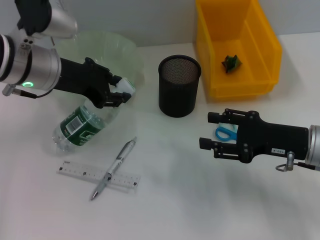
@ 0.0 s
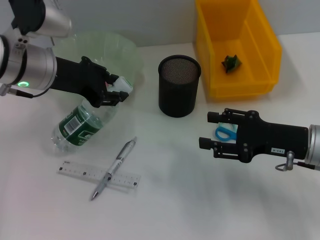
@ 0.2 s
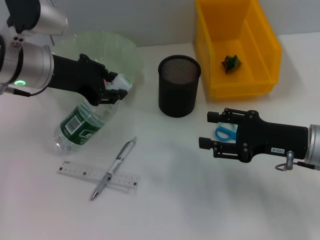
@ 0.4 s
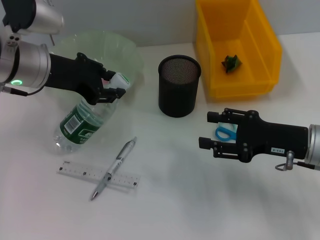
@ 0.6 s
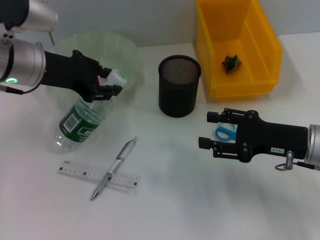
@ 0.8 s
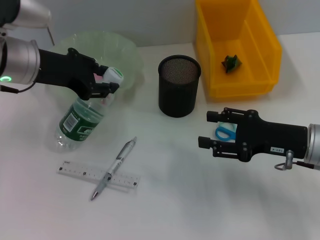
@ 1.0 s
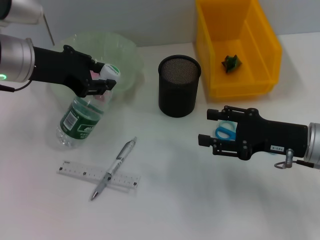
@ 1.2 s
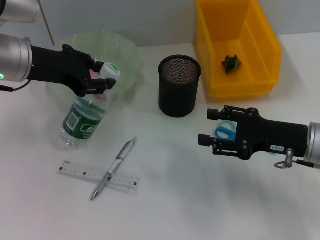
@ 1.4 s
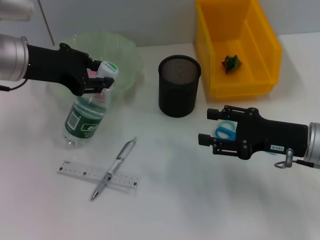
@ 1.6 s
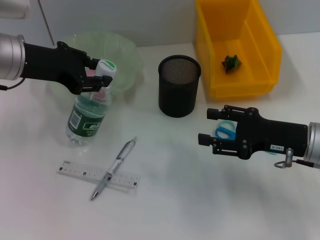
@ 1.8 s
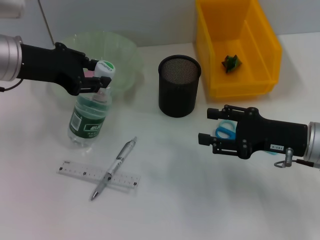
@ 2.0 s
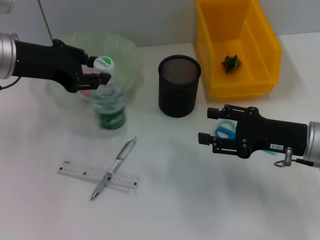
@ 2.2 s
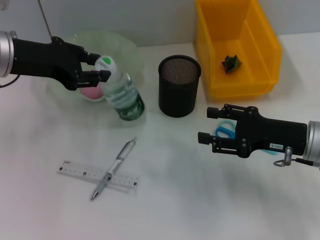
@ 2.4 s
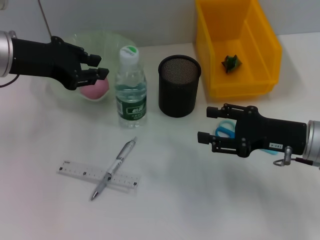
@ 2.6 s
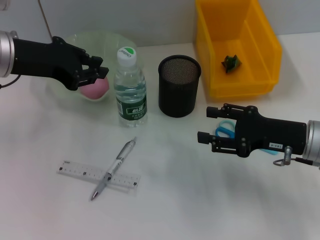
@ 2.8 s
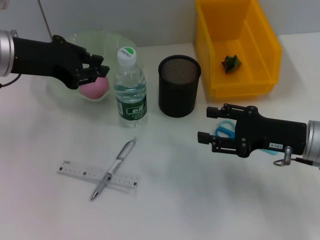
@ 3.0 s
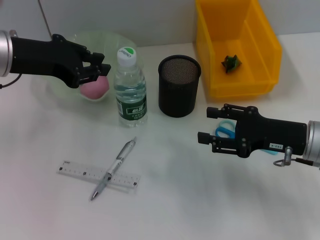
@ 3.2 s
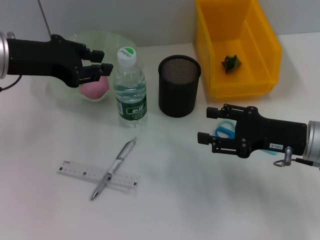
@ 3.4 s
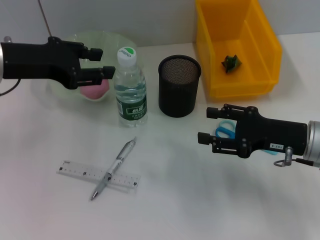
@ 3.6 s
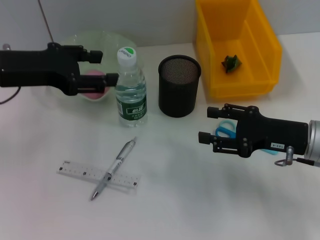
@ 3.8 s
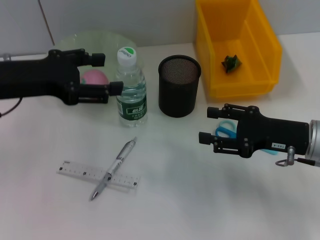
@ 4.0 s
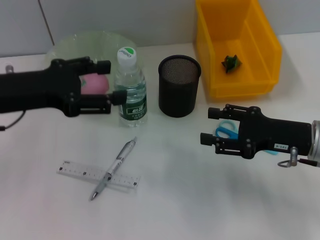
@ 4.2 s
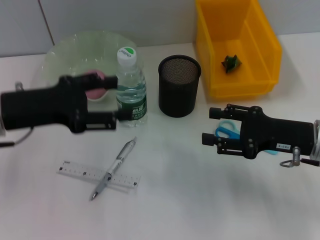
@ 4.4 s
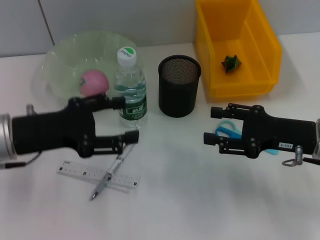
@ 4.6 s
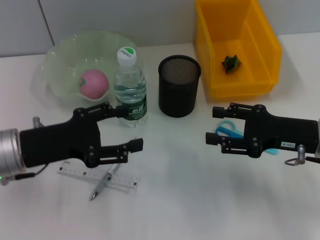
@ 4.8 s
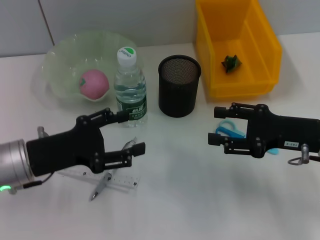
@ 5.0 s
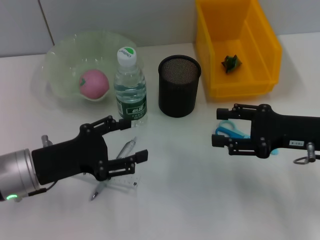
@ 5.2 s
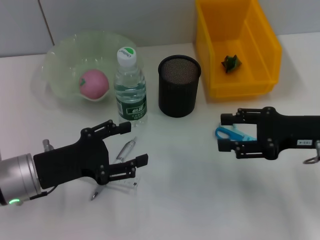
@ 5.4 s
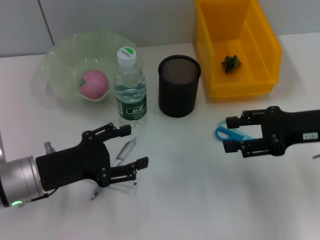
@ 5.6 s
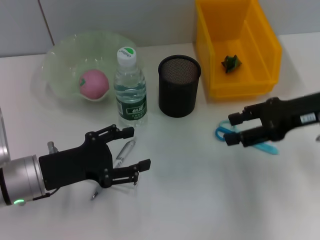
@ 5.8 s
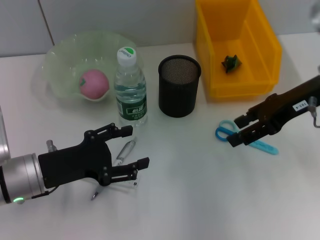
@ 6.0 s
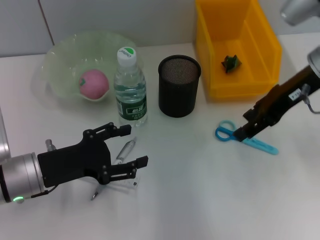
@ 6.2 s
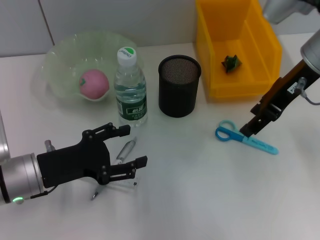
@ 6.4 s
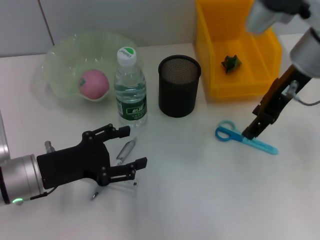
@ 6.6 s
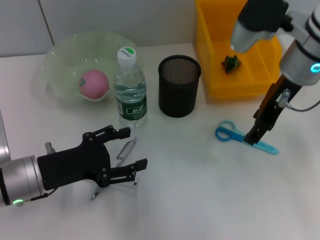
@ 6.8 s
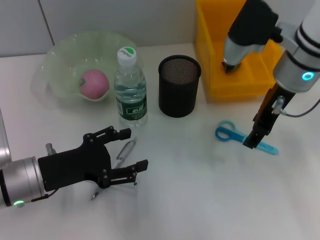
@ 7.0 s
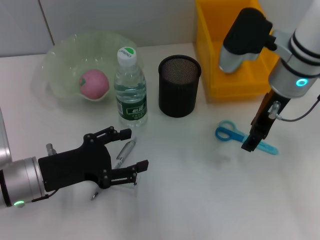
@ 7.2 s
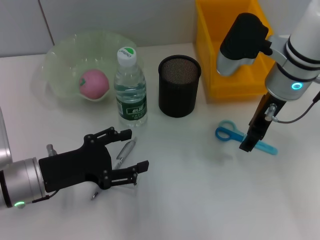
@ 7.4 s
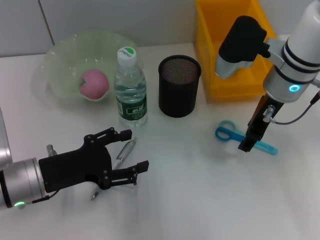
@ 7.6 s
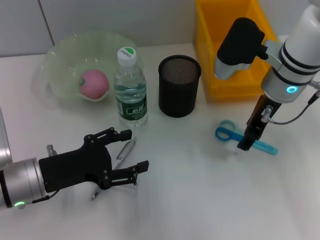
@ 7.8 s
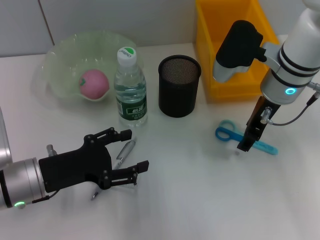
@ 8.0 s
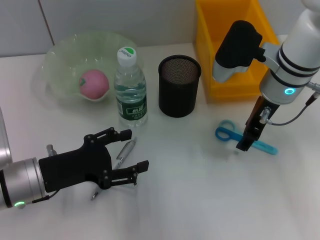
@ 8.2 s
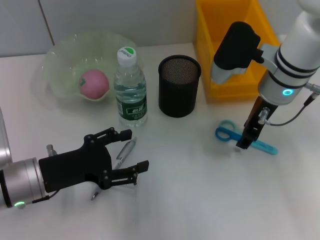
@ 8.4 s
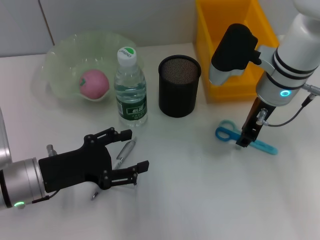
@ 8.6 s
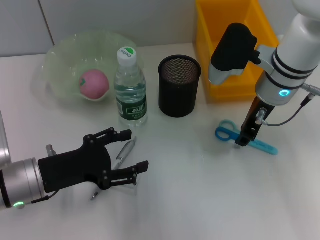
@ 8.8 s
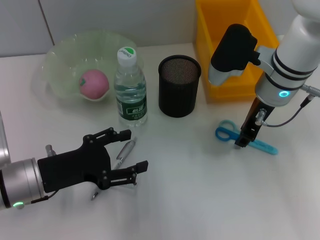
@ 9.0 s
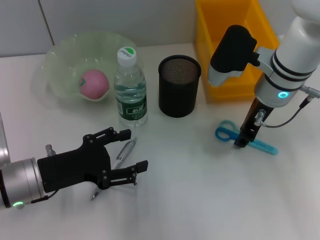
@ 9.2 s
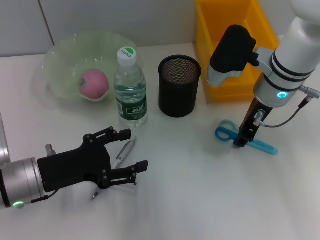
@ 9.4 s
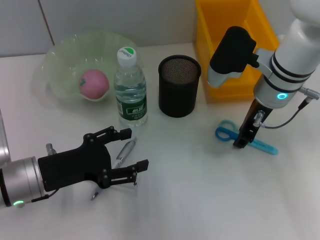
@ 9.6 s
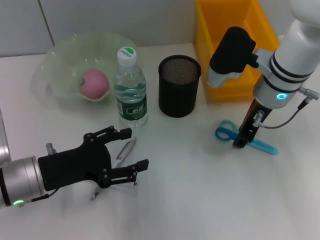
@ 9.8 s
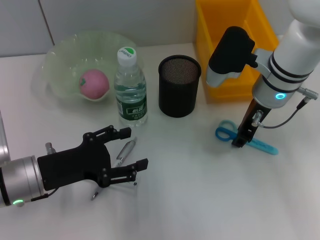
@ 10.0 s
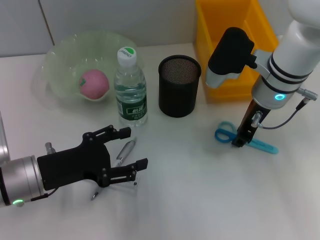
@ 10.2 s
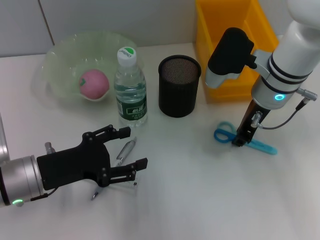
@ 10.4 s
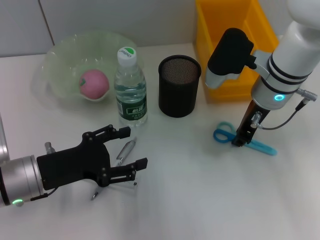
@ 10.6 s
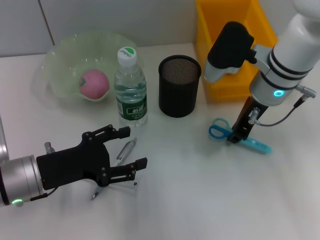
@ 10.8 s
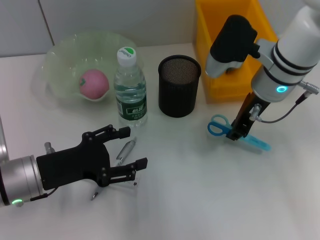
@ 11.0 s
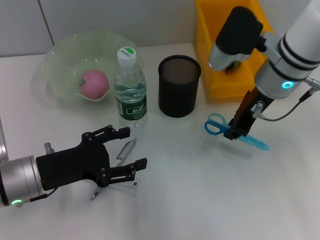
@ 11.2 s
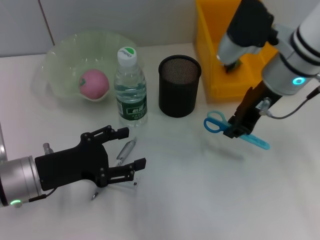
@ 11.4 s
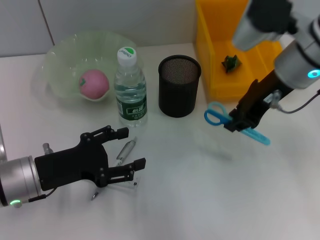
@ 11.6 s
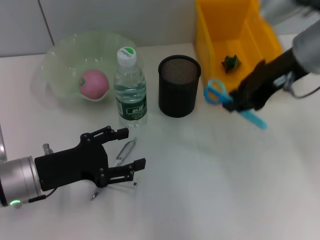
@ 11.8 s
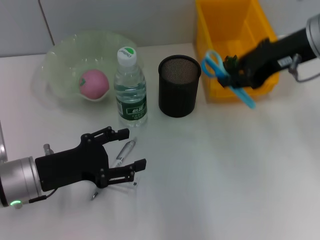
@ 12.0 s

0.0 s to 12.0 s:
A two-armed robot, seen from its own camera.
Step, 0.0 to 2.4 s: Place the water bottle on the table with the left hand.
Step, 2.6 to 10.4 s: Grab the blue scissors with the right hand.
0.0 to 3.0 s: The grippers stay close to where they were, moving slightly.
3.0 to 4.4 s: The left gripper is displaced backward and downward by about 10 cm, and opens up.
4.4 to 6.0 s: The left gripper moves downward, approximately 10 cm. The right gripper goes about 15 cm upward and forward.
6.0 to 7.6 s: The right gripper goes roughly 5 cm to the left.
7.6 to 9.0 s: The right gripper closes its fingers.
9.0 to 10.4 s: Both grippers stay put.
10.4 to 12.0 s: The right gripper moves upward and to the right, roughly 10 cm.

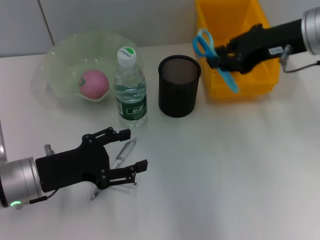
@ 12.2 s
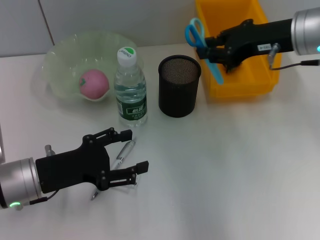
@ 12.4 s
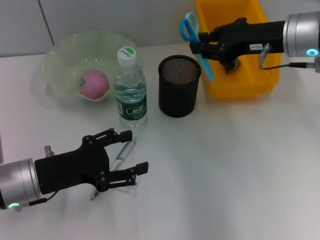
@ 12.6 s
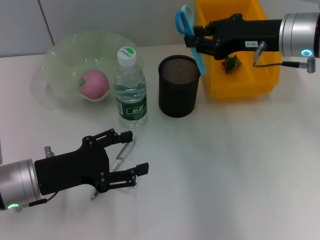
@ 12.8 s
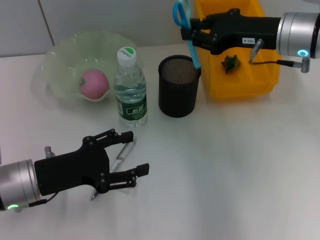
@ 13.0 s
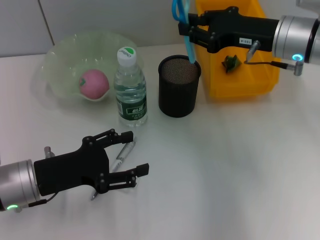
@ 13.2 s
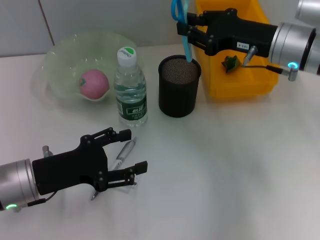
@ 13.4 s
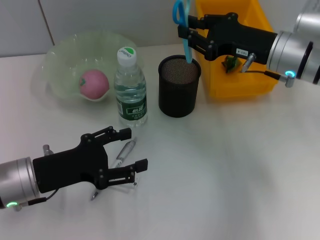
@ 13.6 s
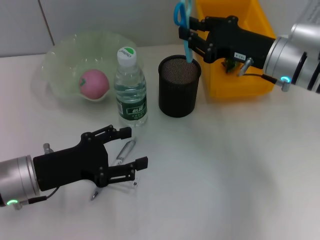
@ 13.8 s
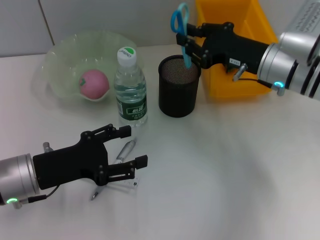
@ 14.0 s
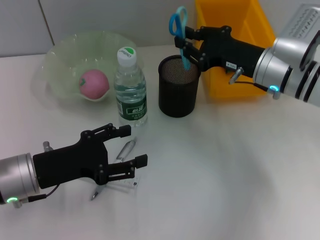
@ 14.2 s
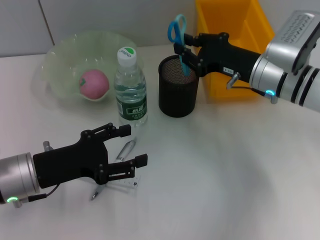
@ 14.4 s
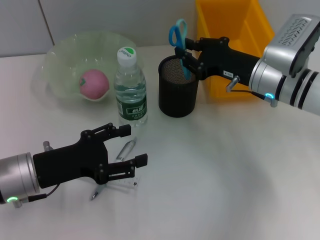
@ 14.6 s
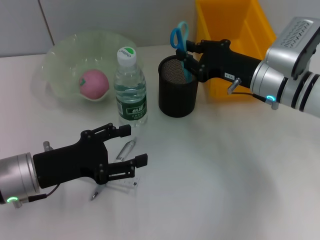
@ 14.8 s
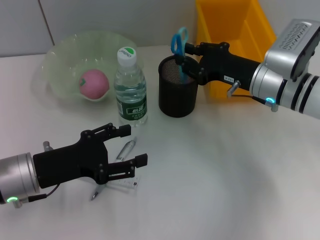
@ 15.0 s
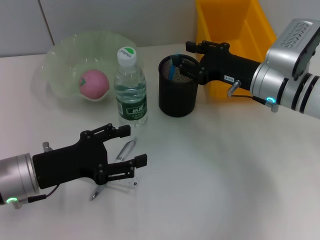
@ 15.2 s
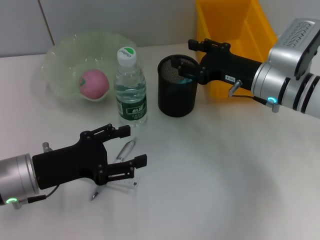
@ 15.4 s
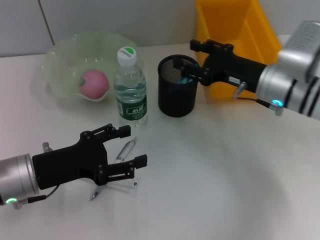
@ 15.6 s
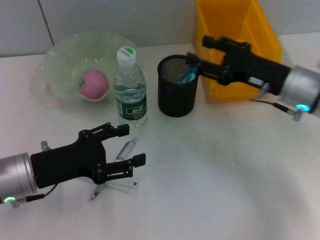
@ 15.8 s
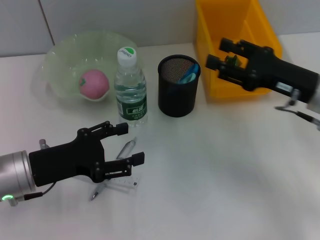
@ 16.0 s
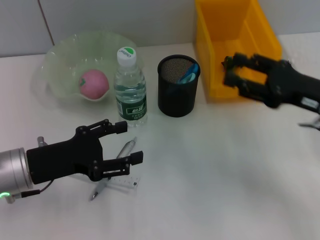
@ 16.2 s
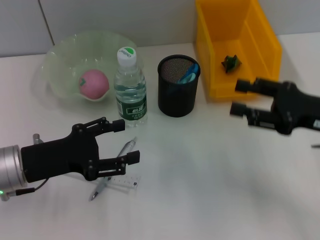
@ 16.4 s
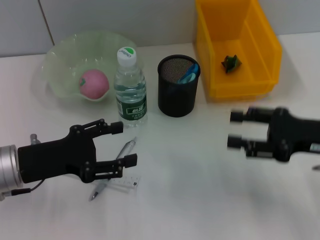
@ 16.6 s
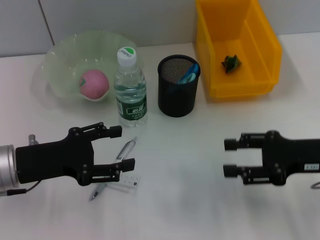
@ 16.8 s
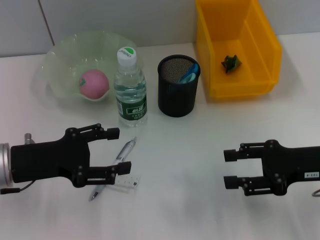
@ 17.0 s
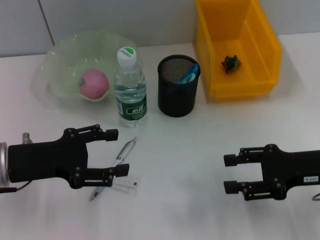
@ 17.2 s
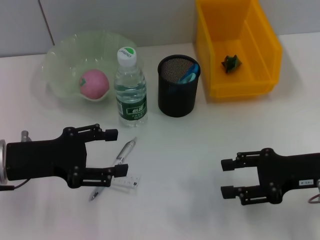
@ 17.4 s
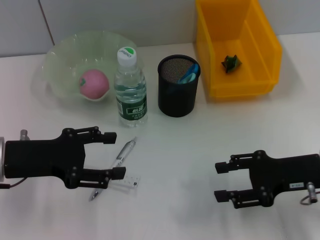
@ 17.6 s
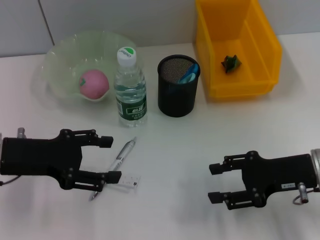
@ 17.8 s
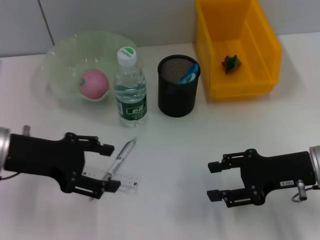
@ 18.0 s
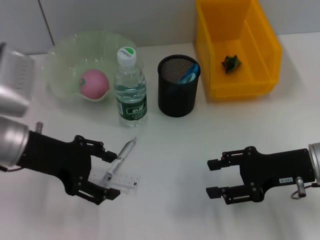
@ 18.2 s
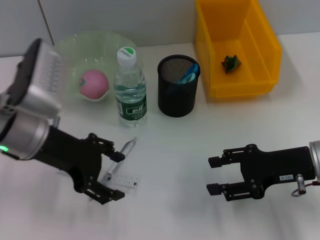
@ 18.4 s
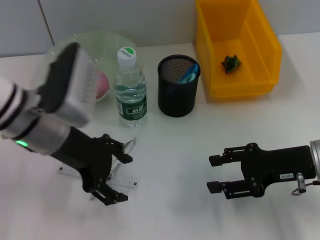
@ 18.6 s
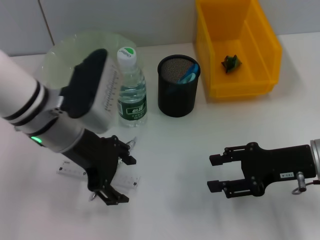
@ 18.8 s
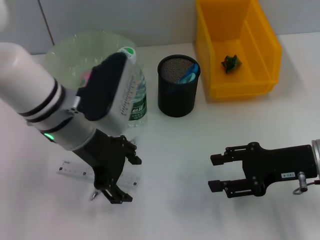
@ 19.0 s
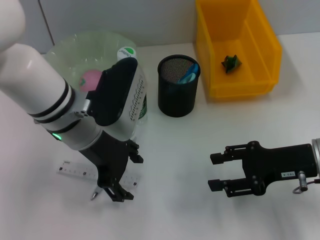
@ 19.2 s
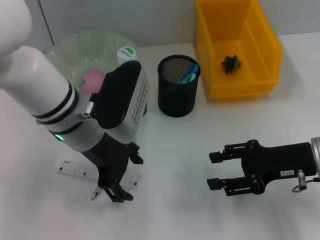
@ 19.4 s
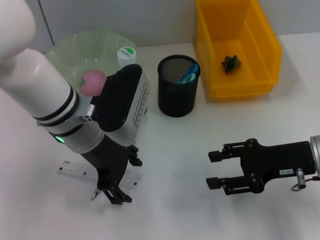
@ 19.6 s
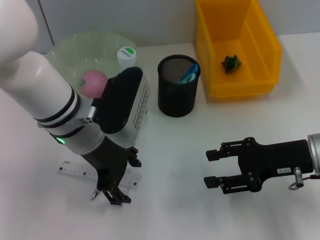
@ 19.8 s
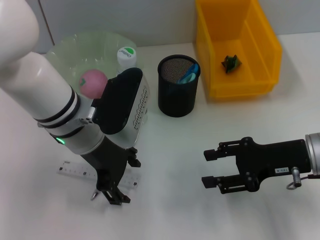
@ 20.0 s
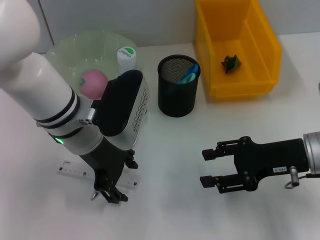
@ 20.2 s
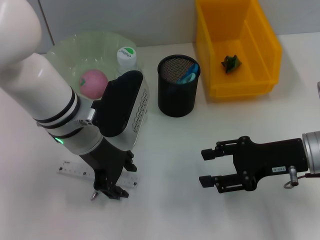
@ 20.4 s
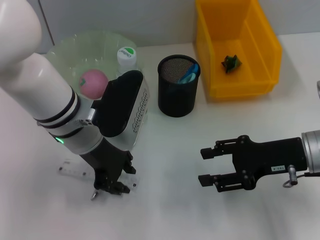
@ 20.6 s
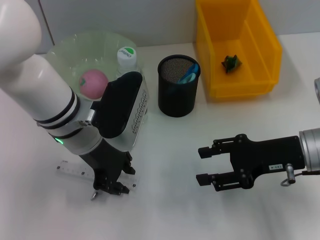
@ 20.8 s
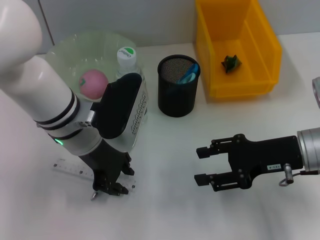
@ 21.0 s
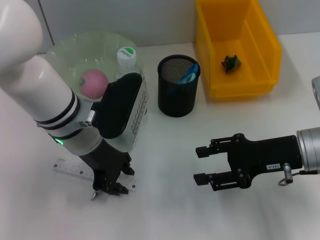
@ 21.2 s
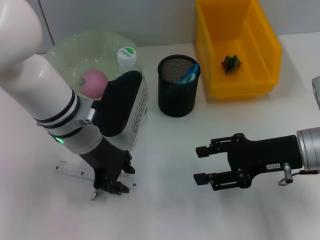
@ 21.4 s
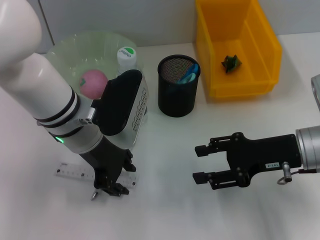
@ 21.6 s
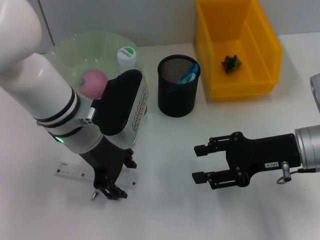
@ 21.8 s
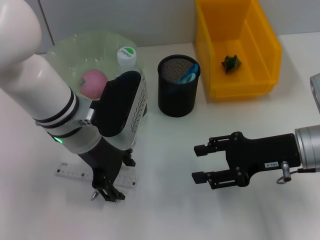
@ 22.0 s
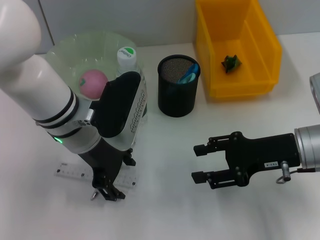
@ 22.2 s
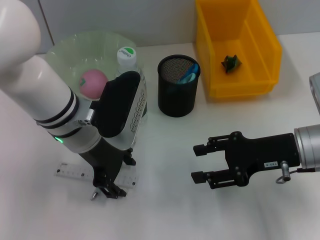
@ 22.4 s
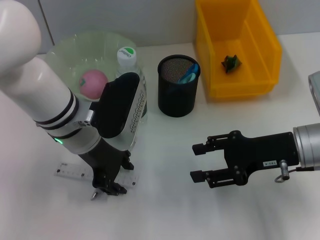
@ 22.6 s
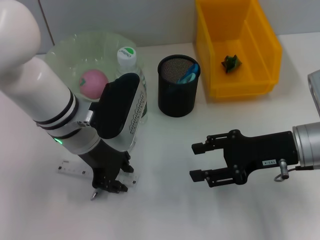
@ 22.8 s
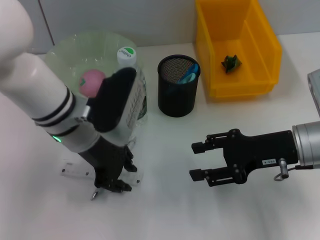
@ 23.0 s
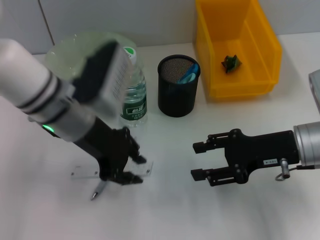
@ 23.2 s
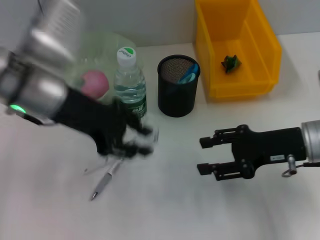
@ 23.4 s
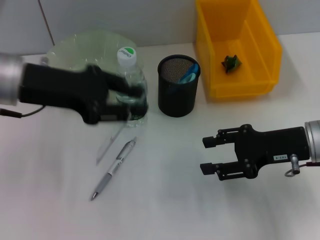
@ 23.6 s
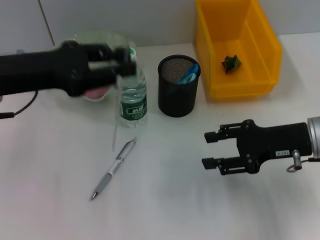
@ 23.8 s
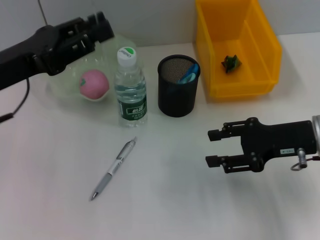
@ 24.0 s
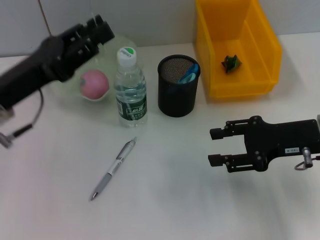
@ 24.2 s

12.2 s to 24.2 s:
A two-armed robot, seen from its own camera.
Step, 12.2 to 15.4 s: Place the blue scissors into the pen holder with the right hand.
Step, 15.6 to 22.6 s: Grab the ruler with the left hand.
12.2 to 13.8 s: The right gripper shifts some 10 cm downward.
13.8 to 15.2 s: There are only small adjustments of the grippers.
15.2 to 16.6 s: The right gripper heads backward and to the right, covering approximately 15 cm.
16.6 to 18.2 s: The left gripper heads upward, covering approximately 5 cm.
18.2 to 19.8 s: The left gripper goes roughly 10 cm to the right.
19.8 to 21.2 s: The left gripper closes up.
21.2 to 22.6 s: The left gripper opens.
22.6 to 24.2 s: The left gripper heads to the left, covering approximately 10 cm, and closes.
